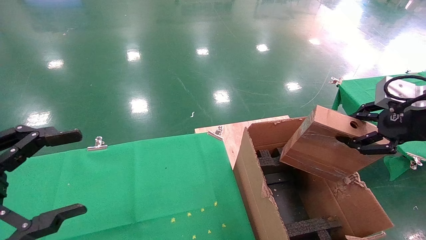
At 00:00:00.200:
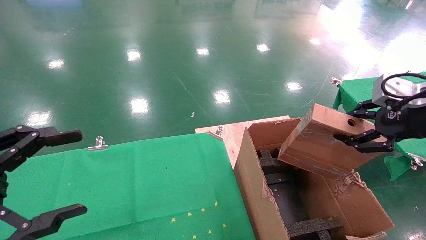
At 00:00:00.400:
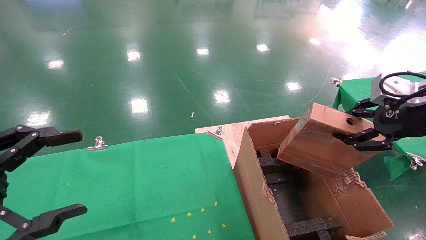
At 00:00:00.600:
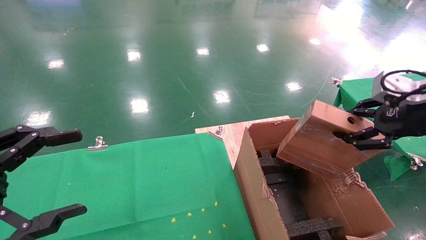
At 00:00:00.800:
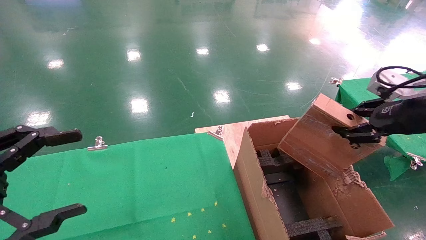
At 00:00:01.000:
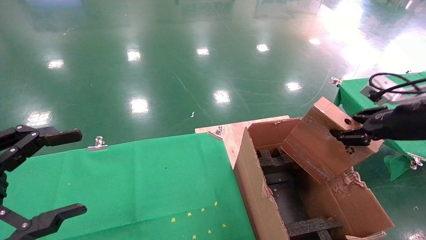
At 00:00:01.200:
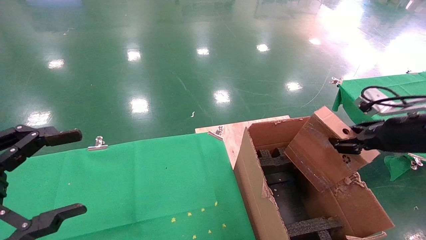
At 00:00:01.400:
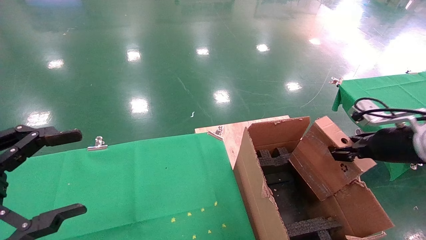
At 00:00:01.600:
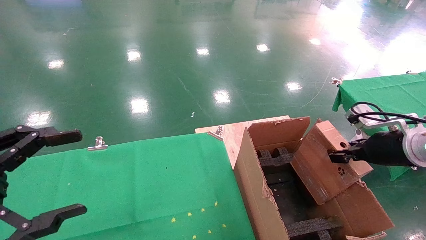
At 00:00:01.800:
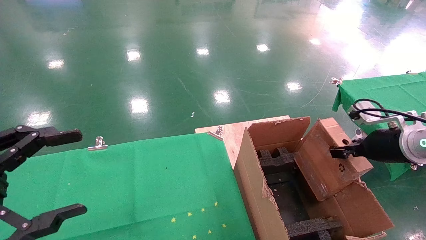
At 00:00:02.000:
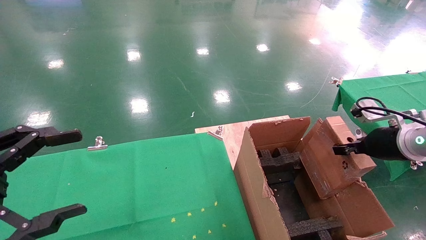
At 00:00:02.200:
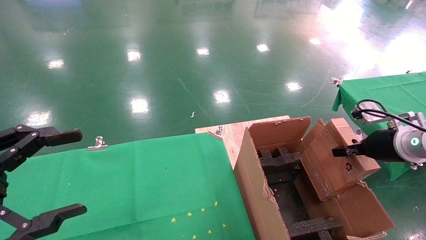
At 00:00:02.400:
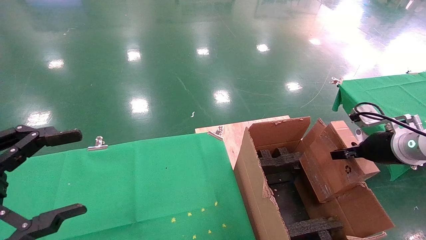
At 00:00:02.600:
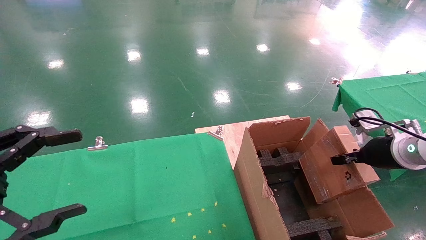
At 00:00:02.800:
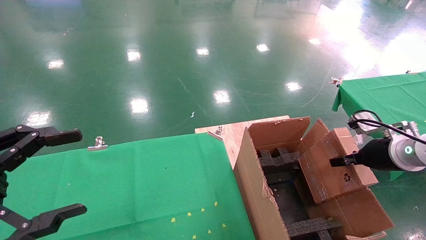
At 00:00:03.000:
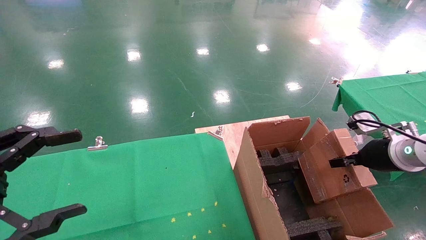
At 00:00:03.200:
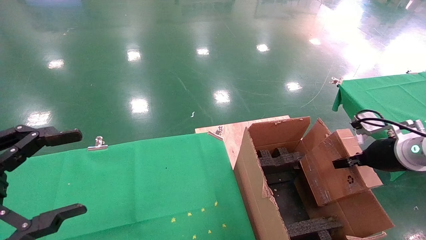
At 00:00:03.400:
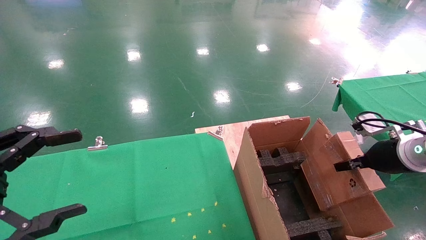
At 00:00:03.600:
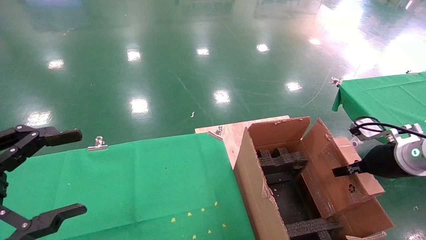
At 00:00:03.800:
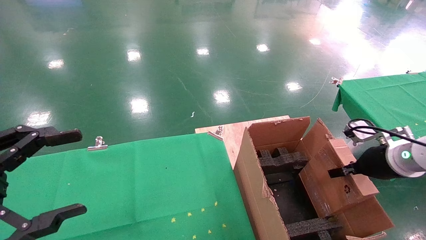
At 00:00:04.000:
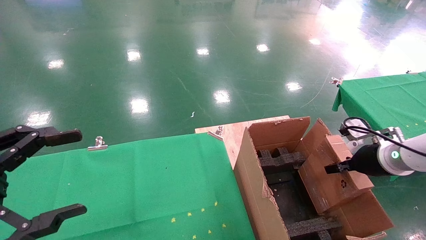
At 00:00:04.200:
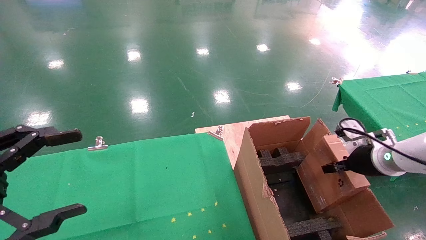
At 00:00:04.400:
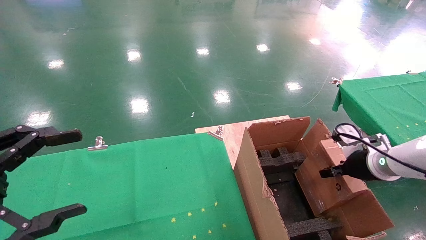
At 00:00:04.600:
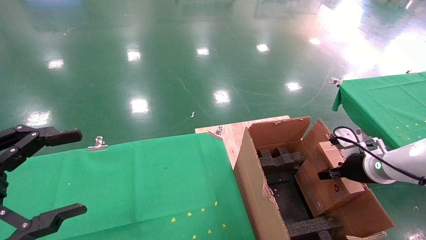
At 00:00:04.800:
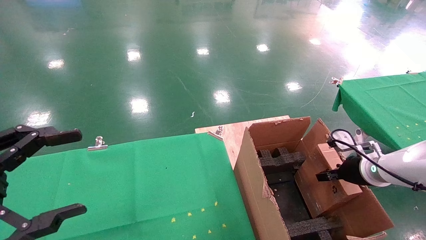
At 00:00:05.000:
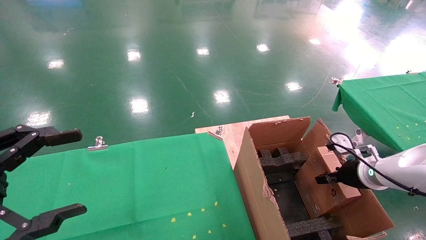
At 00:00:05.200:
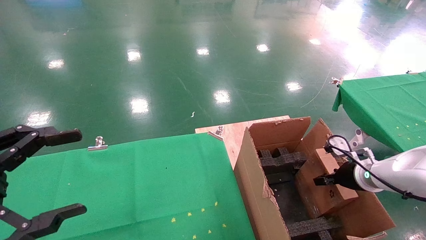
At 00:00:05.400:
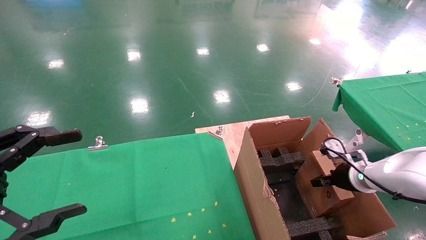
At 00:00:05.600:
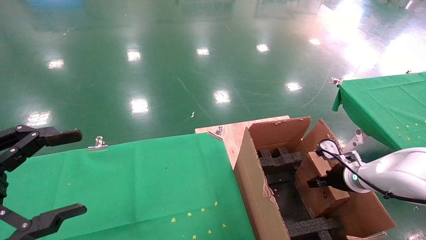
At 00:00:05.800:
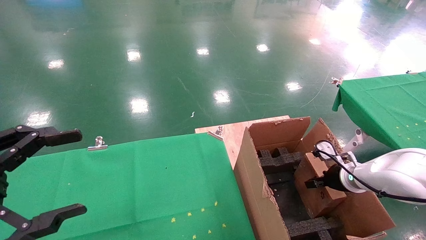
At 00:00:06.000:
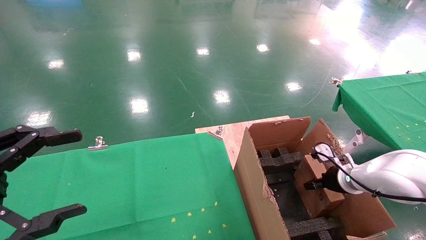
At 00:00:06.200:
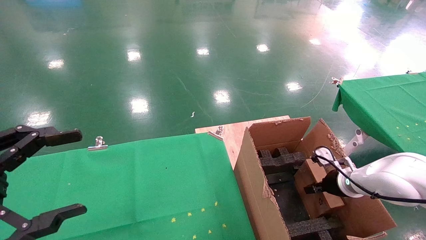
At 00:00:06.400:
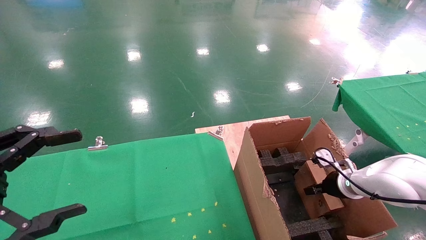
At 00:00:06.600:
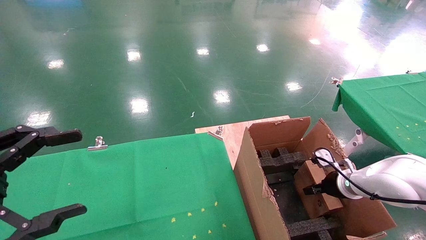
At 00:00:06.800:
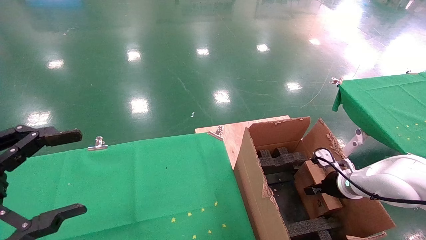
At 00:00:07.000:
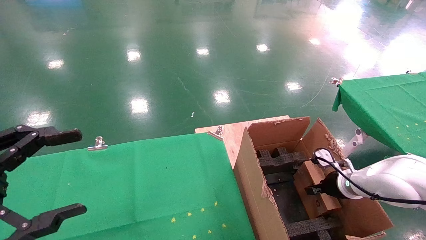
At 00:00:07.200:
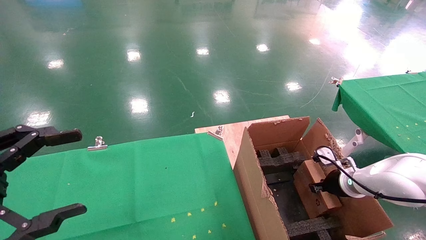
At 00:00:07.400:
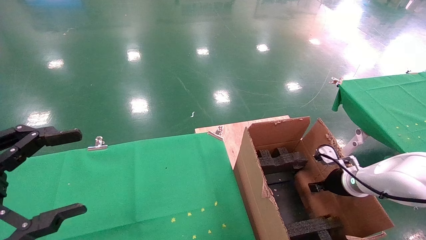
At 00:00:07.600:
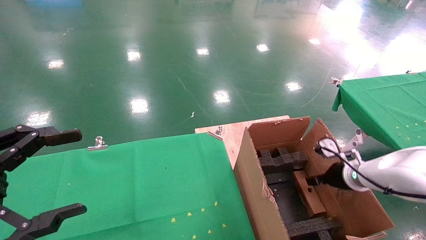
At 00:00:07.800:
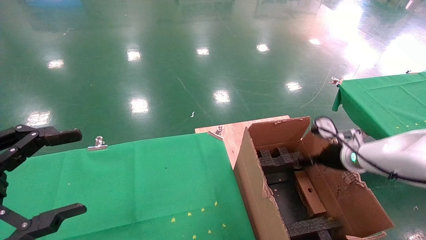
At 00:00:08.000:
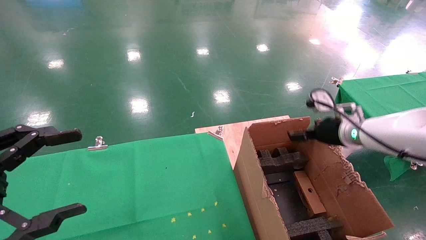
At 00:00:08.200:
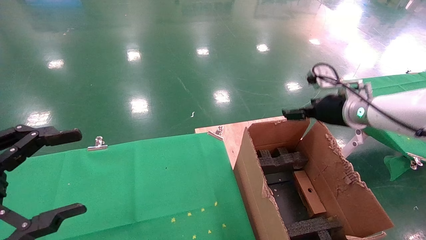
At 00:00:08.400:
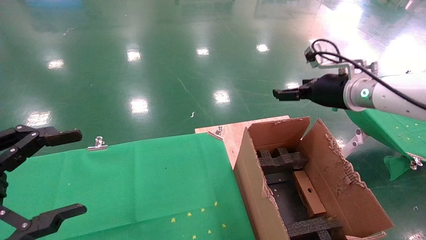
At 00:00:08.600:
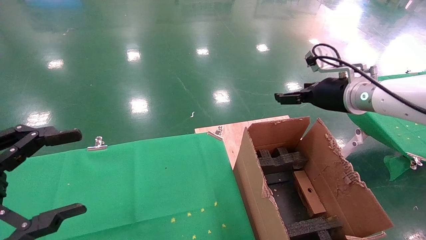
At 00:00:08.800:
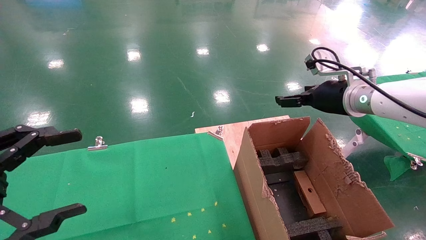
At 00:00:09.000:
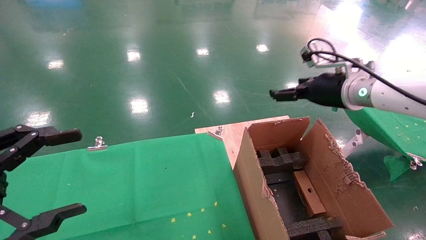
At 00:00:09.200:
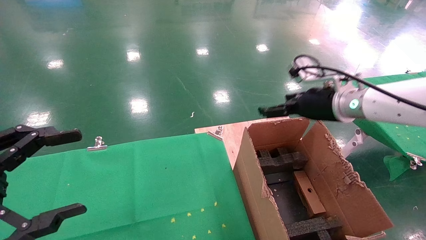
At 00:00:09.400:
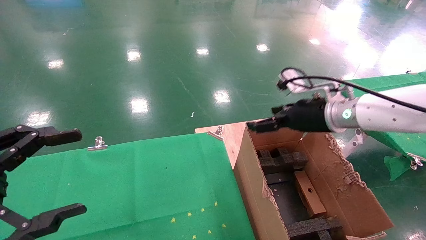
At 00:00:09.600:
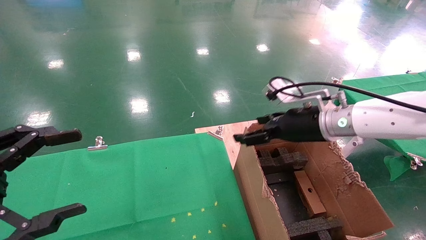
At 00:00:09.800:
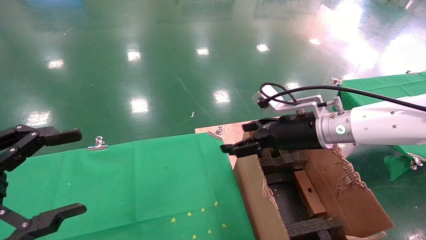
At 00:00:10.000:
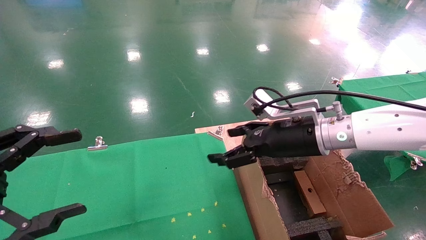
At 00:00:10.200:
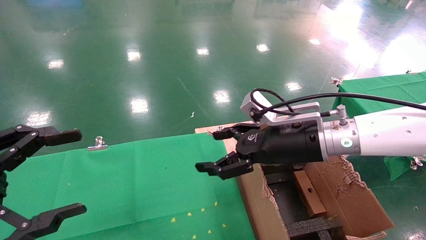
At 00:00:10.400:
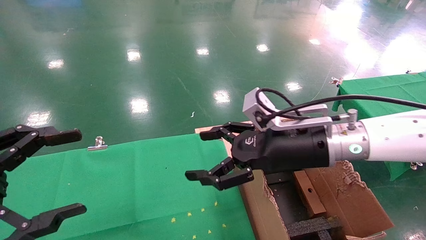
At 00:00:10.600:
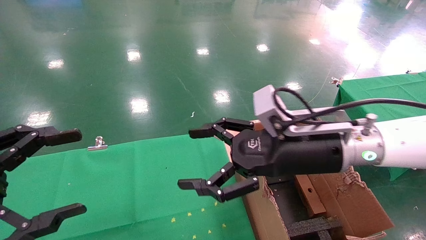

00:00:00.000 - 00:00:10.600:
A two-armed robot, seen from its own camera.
Task of the whole recording: using a robotic arm to pick up a cardboard box and palace it the carton.
Step, 00:00:00.000 - 00:00:08.200: Place the mouse and the power cord paper box into the container.
00:00:00.000 - 00:00:01.600: The right gripper is displaced downward and forward by about 10 cm.
00:00:01.600 - 00:00:03.000: The grippers make only small movements.
00:00:03.000 - 00:00:04.600: The right gripper shifts some 5 cm downward.
00:00:04.600 - 00:00:06.000: The right gripper travels downward by some 5 cm.
00:00:06.000 - 00:00:07.600: The right gripper opens its fingers.
00:00:07.600 - 00:00:09.000: The right gripper travels upward and to the left by some 20 cm, and opens up.
00:00:09.000 - 00:00:10.600: The right gripper moves to the left and backward, about 15 cm.
